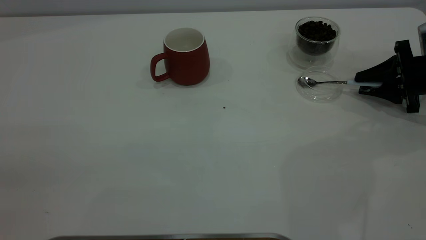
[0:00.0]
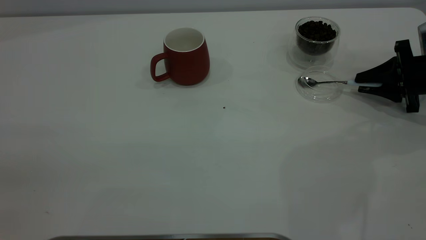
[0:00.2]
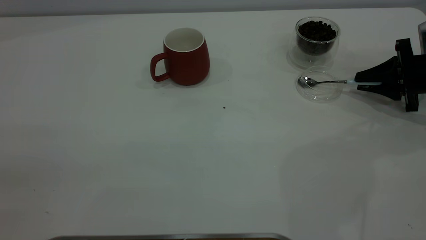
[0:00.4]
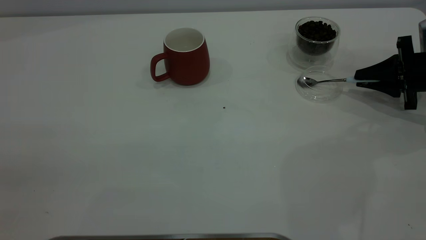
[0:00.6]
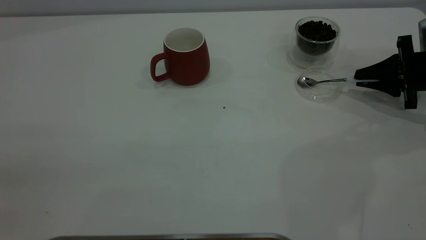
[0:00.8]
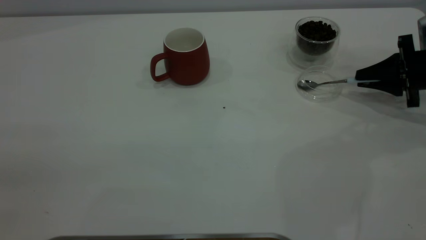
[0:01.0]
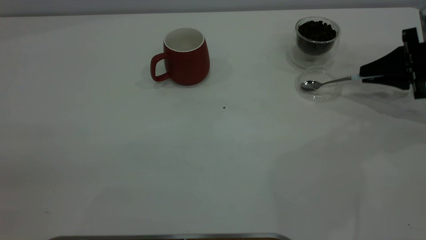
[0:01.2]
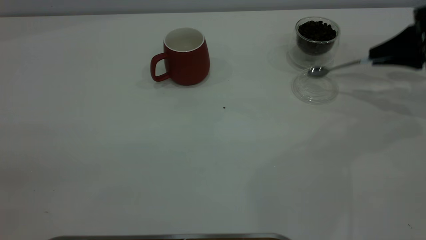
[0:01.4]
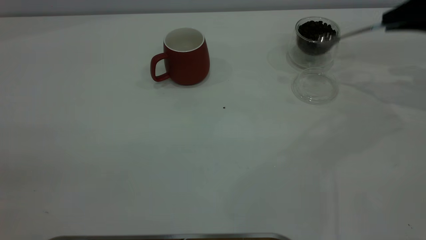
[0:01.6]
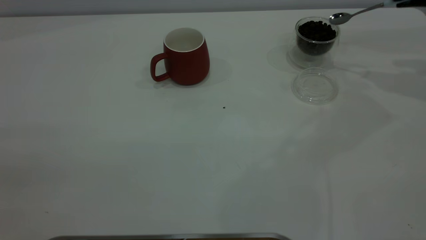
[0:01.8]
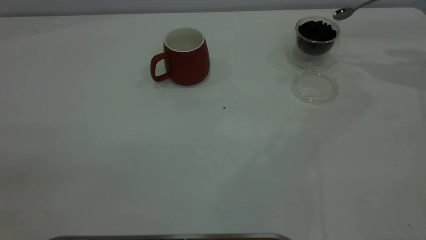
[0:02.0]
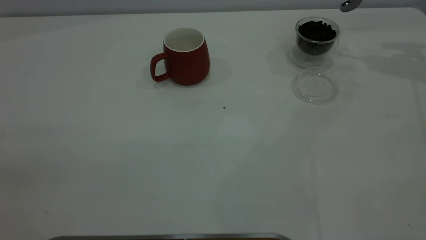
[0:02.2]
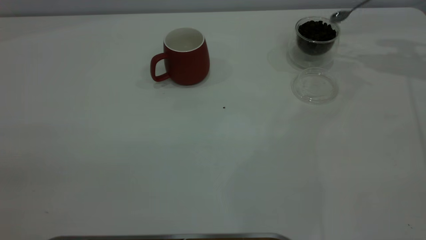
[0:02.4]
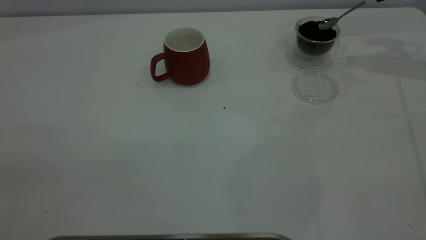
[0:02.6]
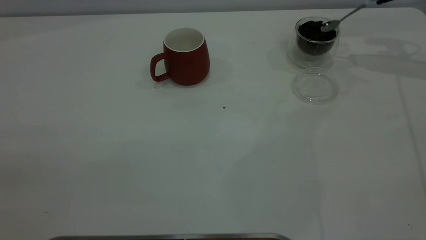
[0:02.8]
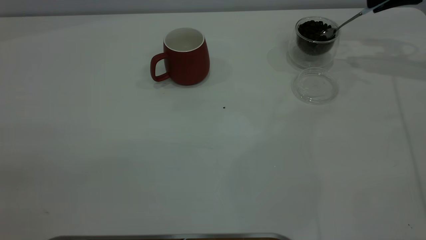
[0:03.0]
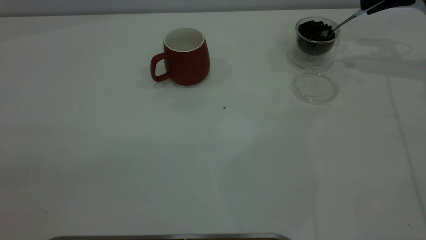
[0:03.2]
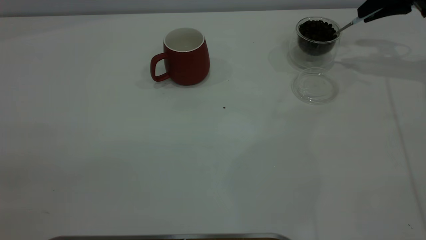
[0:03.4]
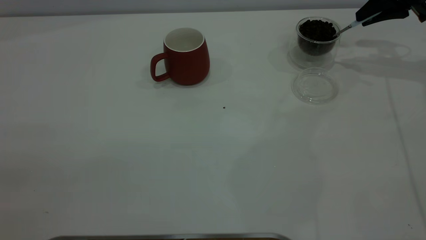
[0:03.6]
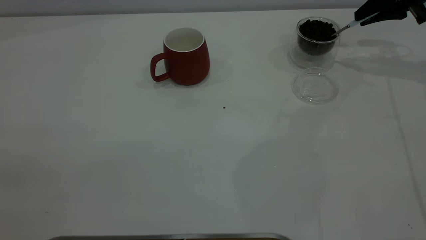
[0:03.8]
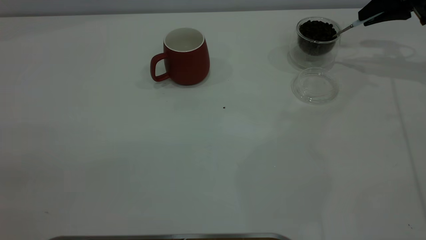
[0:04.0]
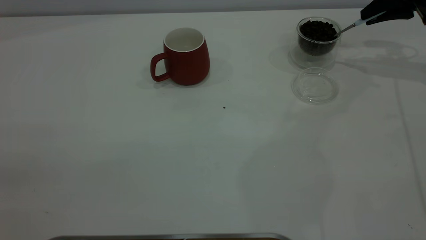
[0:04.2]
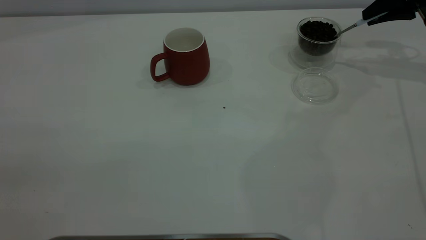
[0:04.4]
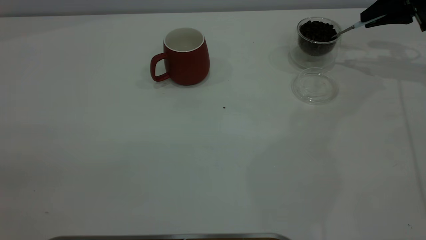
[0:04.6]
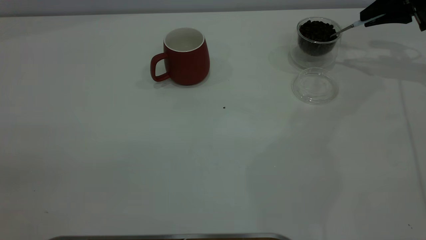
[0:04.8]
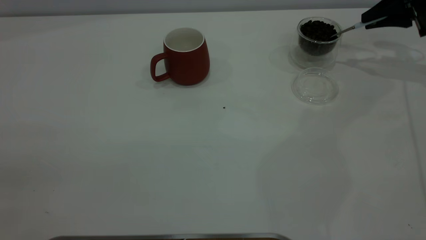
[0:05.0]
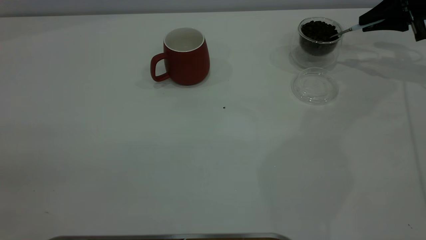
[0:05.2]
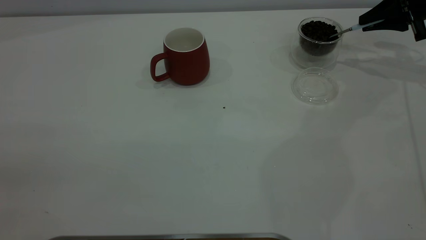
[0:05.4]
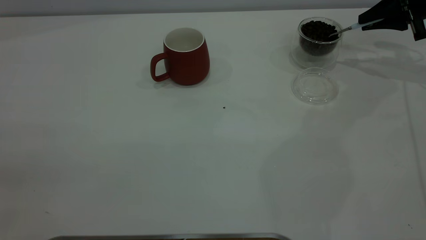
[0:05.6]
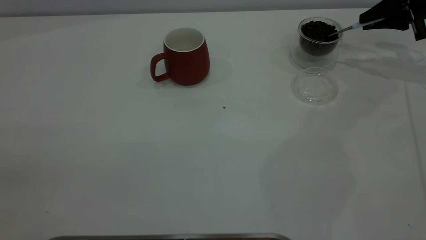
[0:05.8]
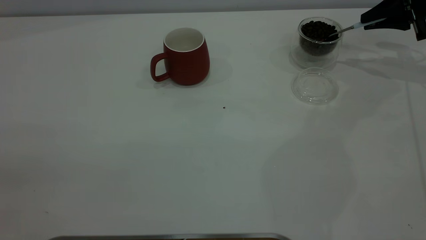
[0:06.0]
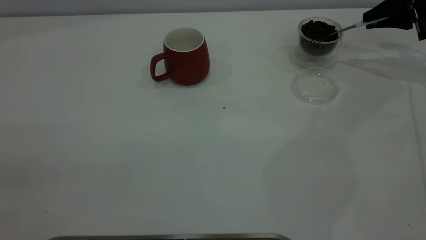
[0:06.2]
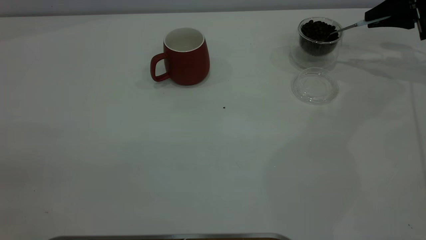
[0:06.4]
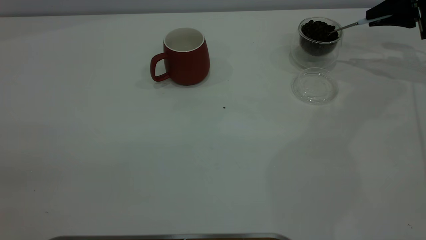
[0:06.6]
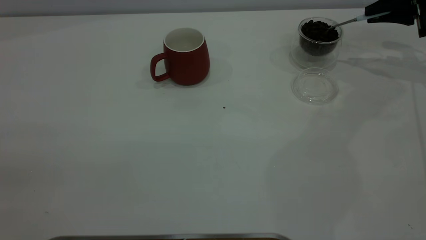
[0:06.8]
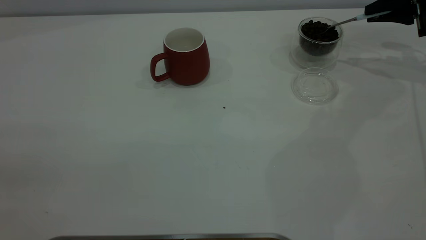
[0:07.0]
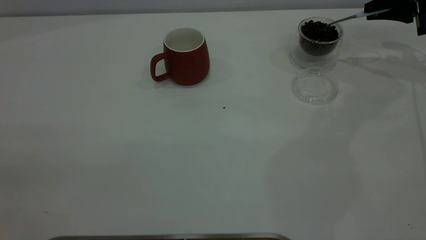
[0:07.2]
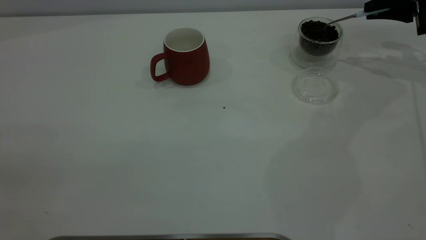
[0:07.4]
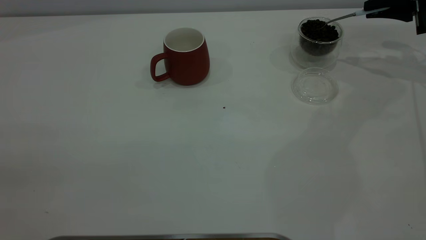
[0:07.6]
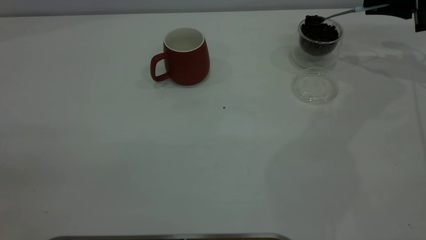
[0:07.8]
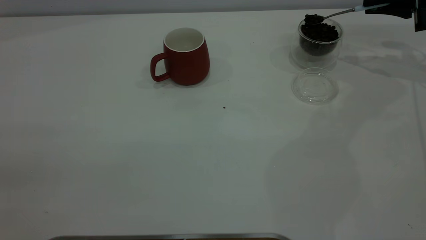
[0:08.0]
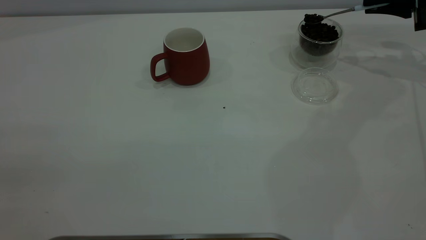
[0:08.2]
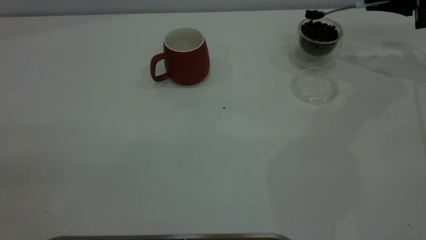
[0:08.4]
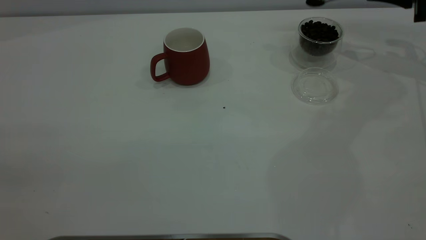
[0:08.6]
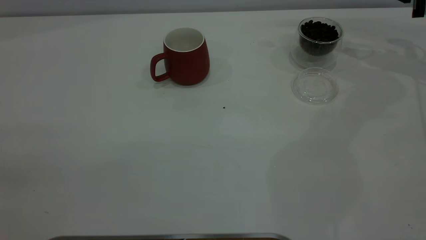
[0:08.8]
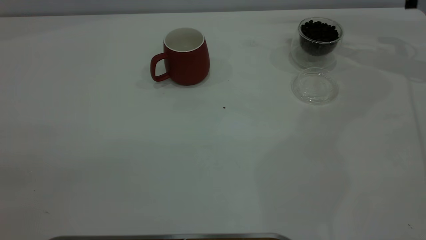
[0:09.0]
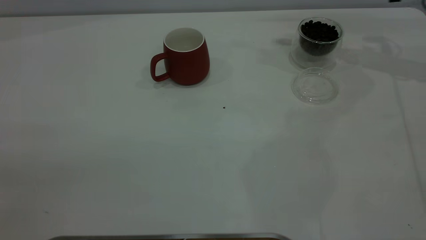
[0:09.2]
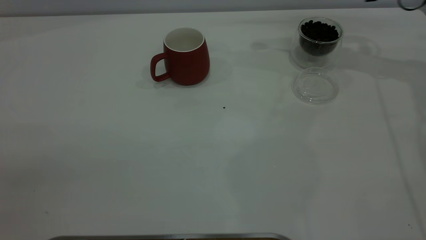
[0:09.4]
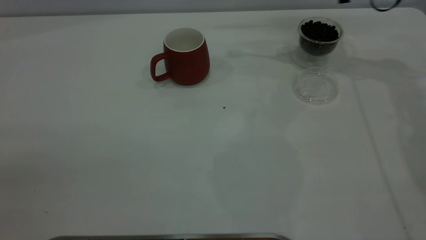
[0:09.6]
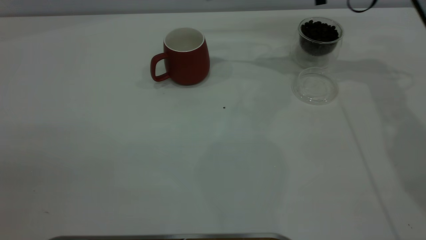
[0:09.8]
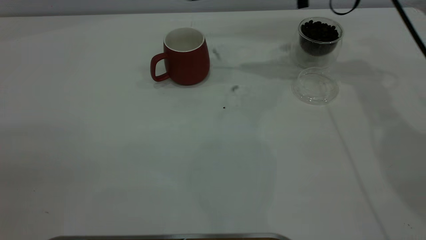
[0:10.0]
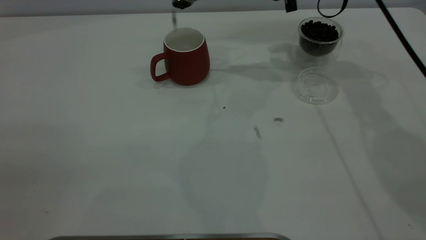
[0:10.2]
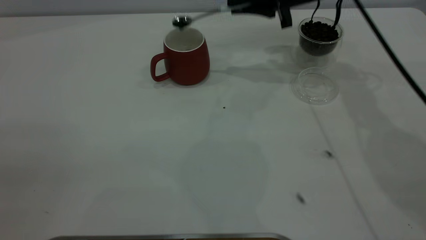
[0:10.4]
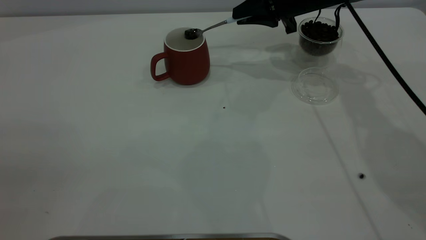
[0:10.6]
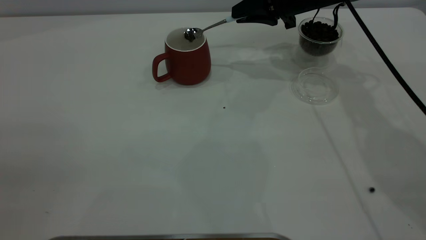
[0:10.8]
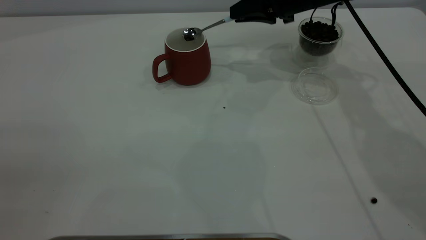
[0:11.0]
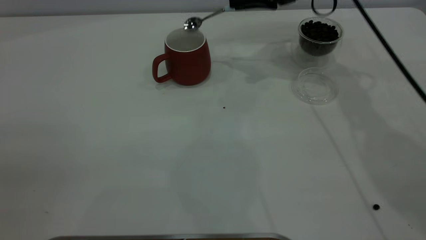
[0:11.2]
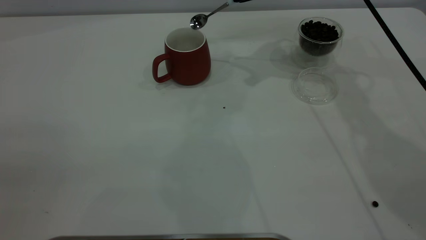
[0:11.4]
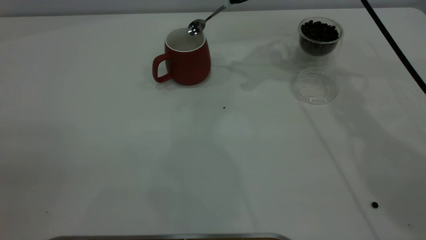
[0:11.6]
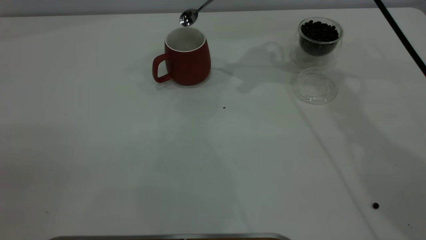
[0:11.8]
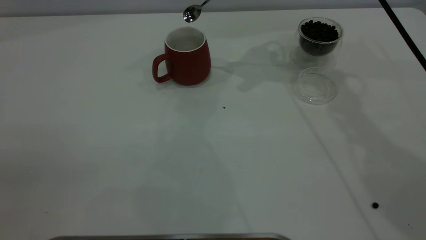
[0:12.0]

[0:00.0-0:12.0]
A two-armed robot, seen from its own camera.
Task of the whole recording: the left gripper place the red cup in the center of the table, the right gripper take the blue spoon from the cup lid and scoop out the coffee beans from the coffee cup and put them into the red cup, the right gripper put the spoon back into the cup lid.
Step, 0:01.6 to 0:11.8: Scoop a spoonful of beans into the cup.
0:00.0 to 0:01.6: The right gripper heads upward, covering some 15 cm, and closes its fingers.
0:01.6 to 0:03.0: The right gripper travels forward by about 10 cm.
0:03.0 to 0:04.4: The grippers move only a little.
0:04.4 to 0:07.6: The grippers make only small movements.
0:07.6 to 0:09.0: The grippers move only a little.
0:09.0 to 0:10.4: The right gripper goes about 20 cm to the left.
0:10.4 to 0:12.0: The right gripper travels upward by some 10 cm.

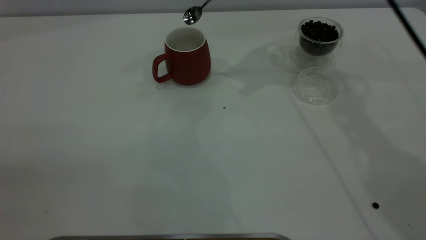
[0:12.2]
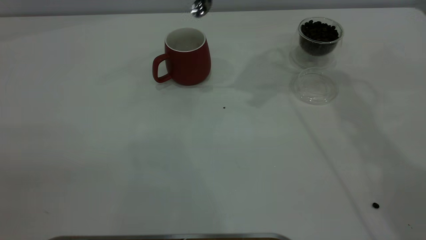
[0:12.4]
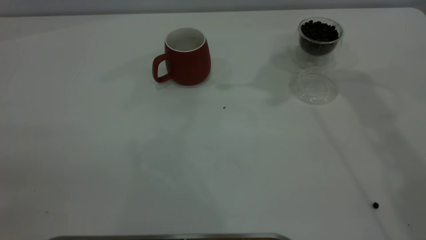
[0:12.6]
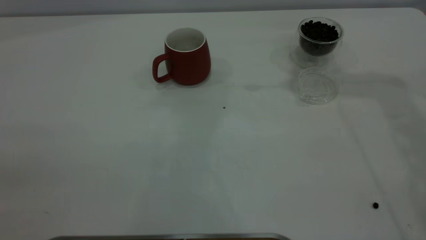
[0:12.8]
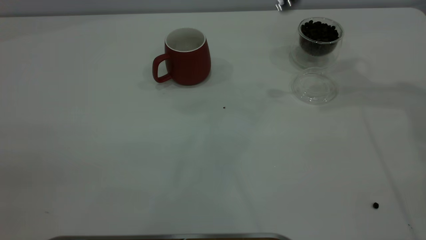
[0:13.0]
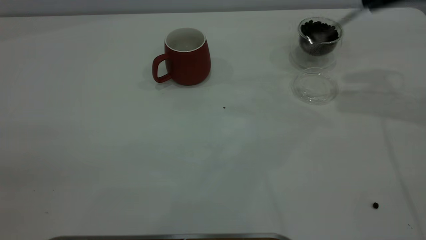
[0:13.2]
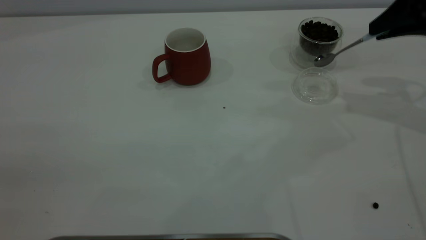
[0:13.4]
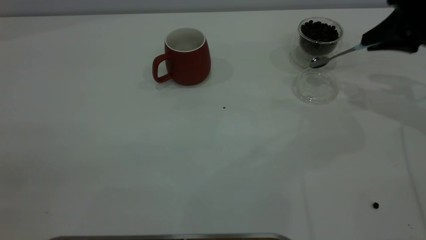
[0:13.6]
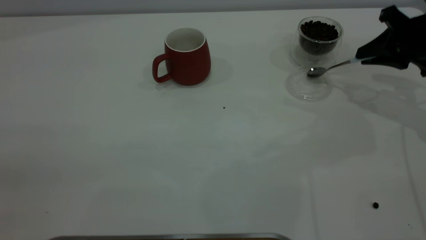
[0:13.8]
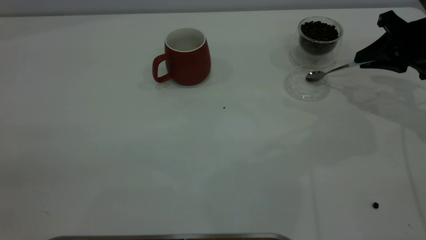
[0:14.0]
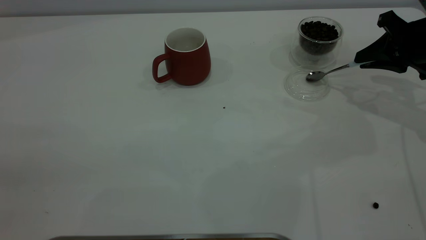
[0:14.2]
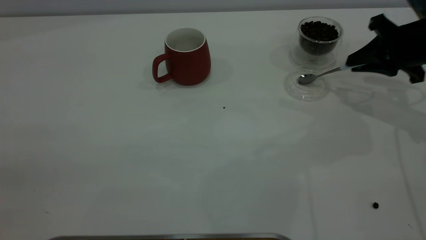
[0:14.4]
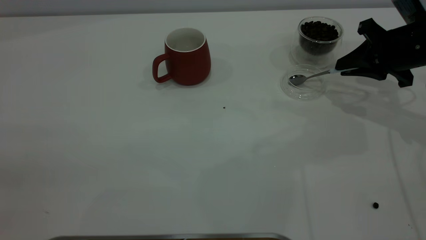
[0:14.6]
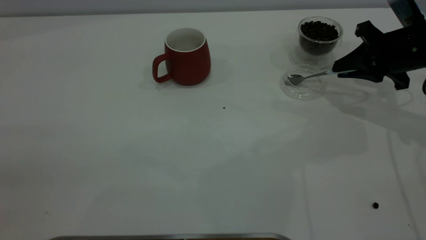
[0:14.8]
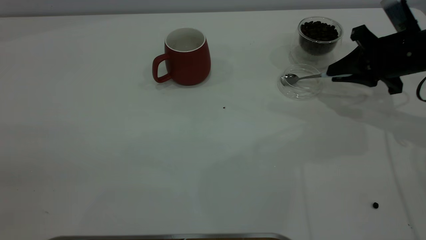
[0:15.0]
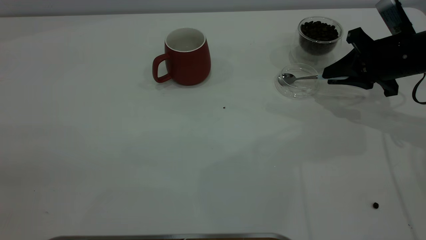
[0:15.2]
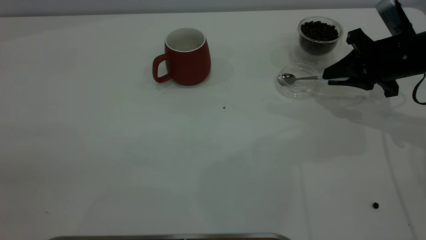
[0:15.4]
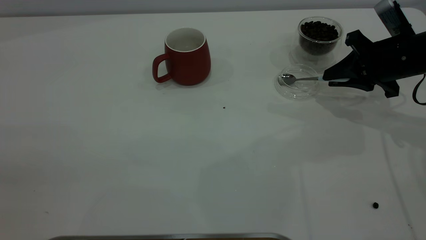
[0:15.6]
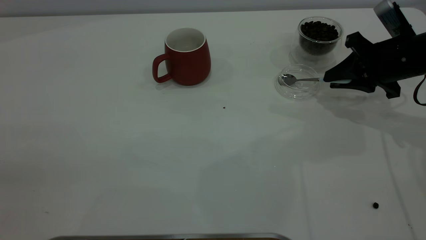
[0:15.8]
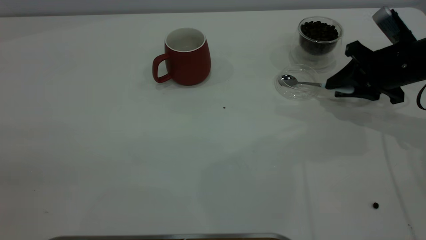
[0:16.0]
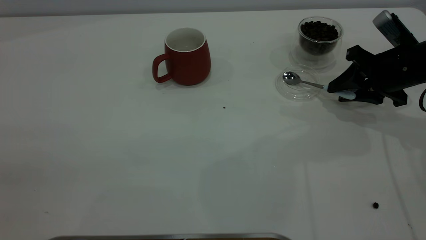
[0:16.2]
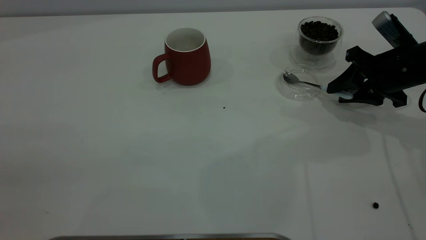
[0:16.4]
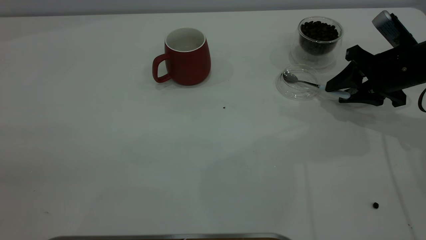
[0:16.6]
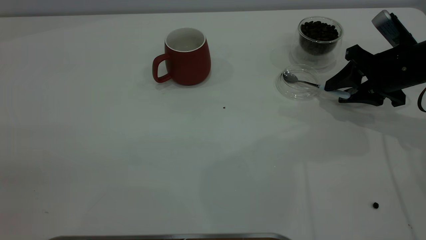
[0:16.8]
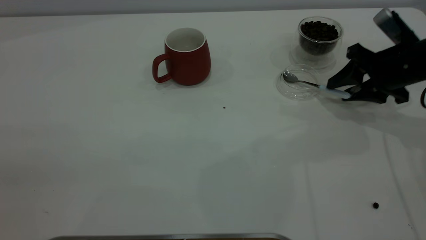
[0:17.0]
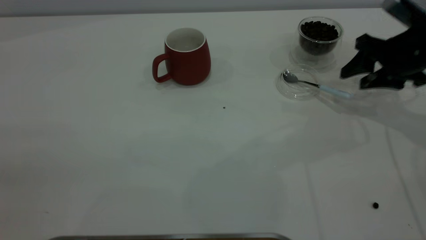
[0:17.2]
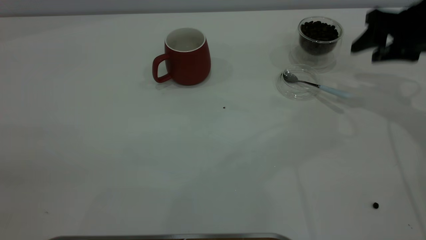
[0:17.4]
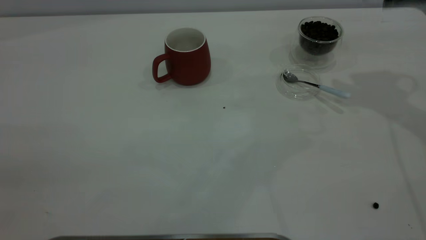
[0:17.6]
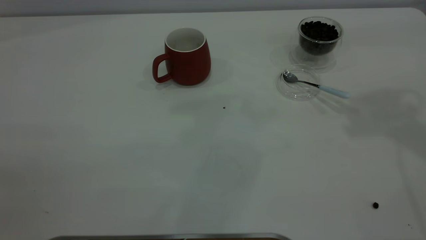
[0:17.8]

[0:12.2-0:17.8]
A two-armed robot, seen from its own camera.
Task of the whole recording: the left gripper place the red cup in the center of the table, the right gripper take the blue spoon from the cup lid and scoop out the coffee beans from the coffee cup and put them into the red cup, the right gripper put the spoon back into the cup lid.
Step, 0:12.2 to 0:17.0: Place the spoon back in its original place.
0:12.2 to 0:13.6: The right gripper shifts roughly 25 cm to the right and downward.
0:13.6 to 0:15.0: The right gripper travels downward by about 5 cm.
0:15.0 to 0:16.4: The right gripper opens up.
0:16.4 to 0:17.8: The right gripper moves upward, roughly 30 cm.
